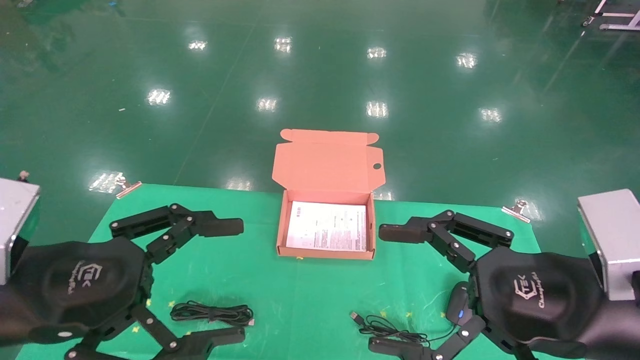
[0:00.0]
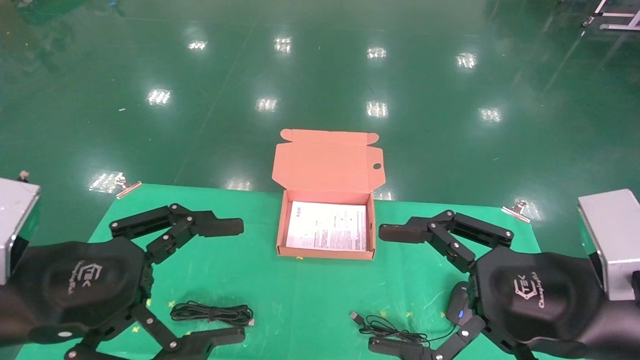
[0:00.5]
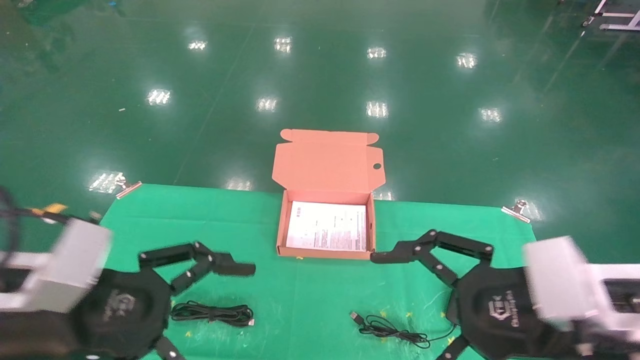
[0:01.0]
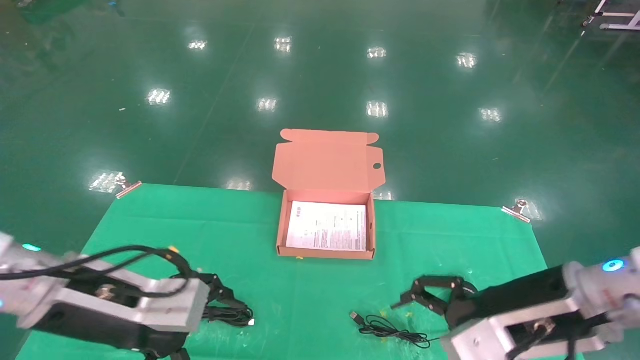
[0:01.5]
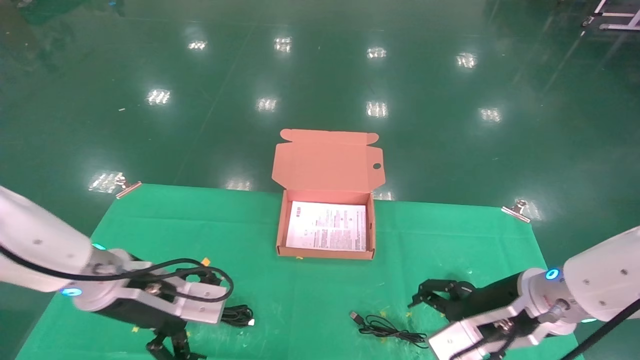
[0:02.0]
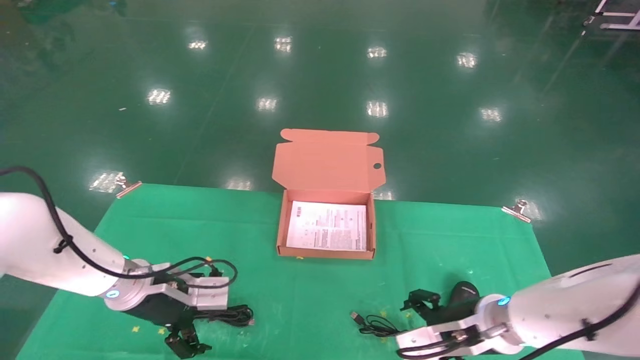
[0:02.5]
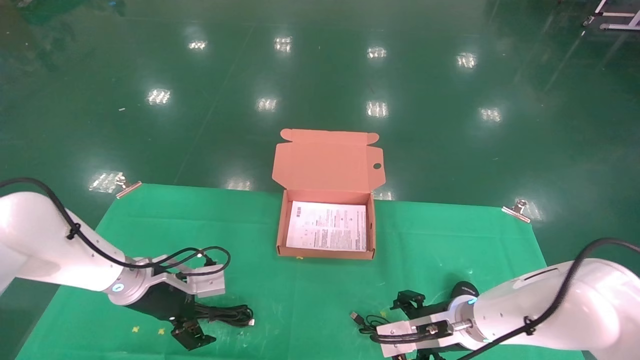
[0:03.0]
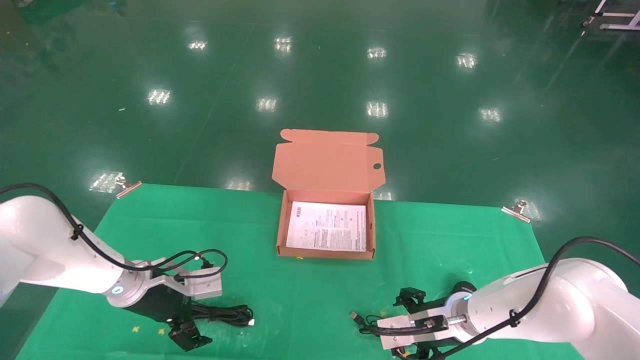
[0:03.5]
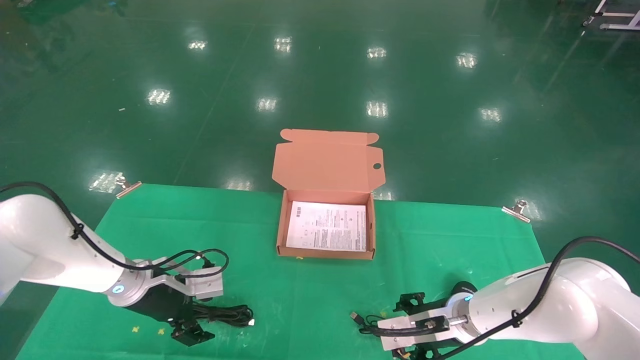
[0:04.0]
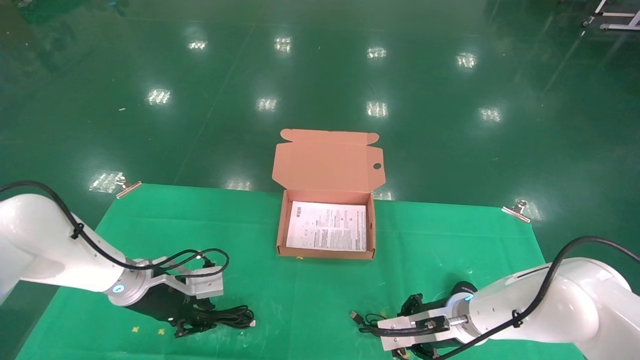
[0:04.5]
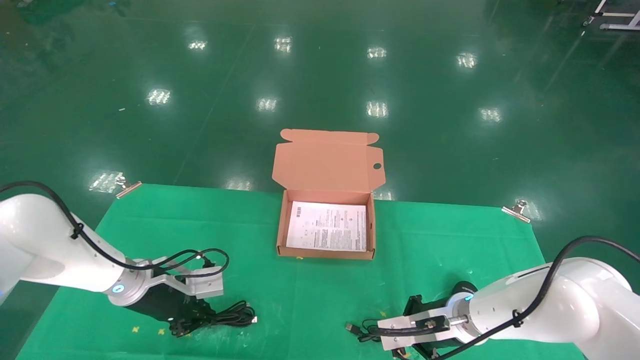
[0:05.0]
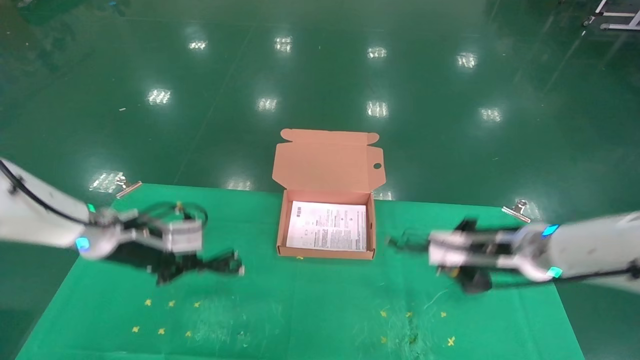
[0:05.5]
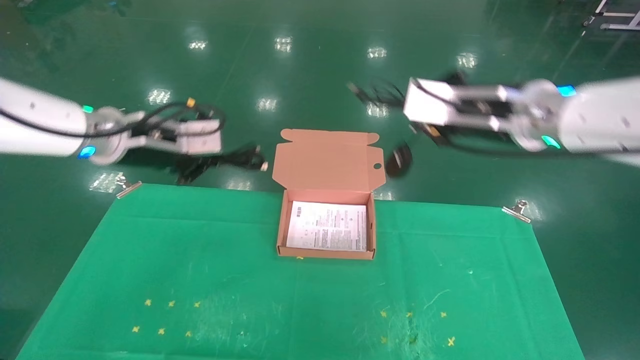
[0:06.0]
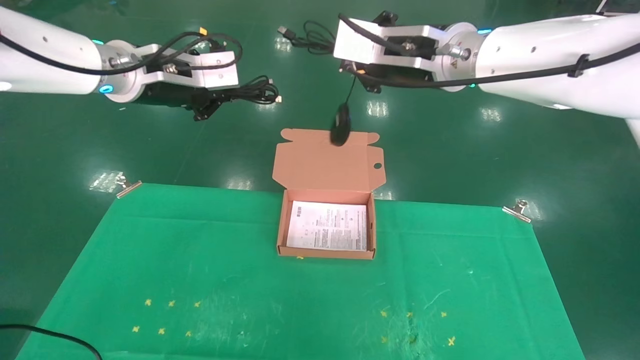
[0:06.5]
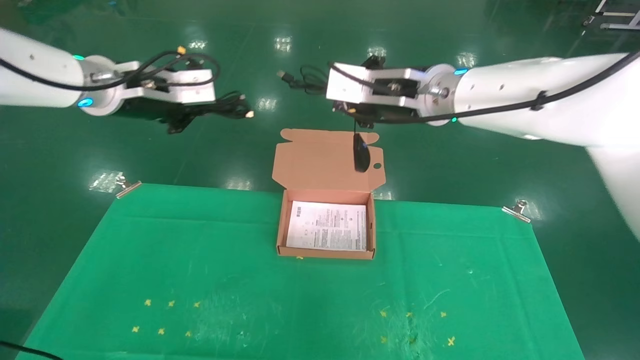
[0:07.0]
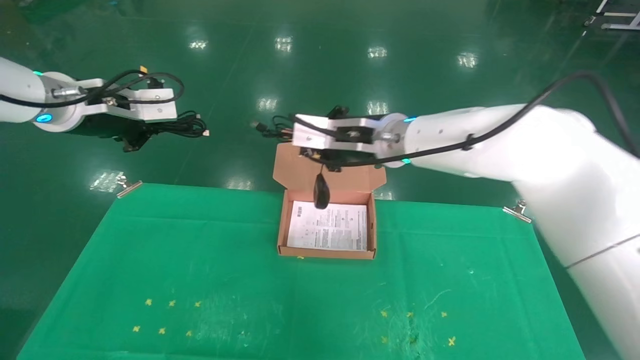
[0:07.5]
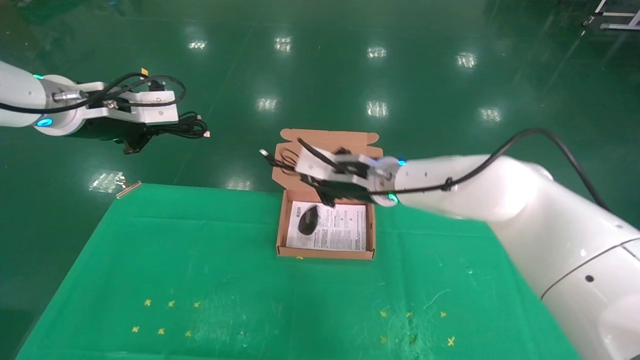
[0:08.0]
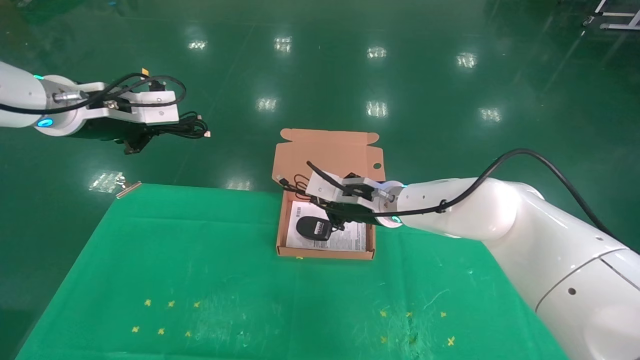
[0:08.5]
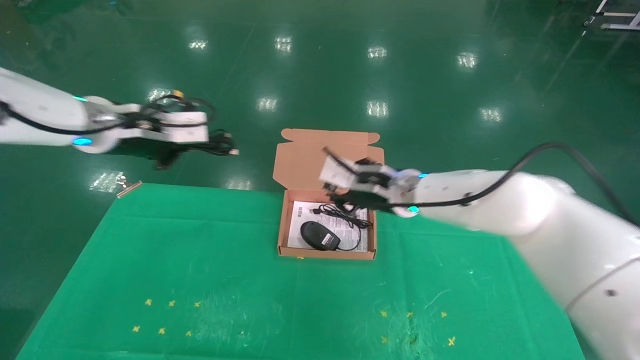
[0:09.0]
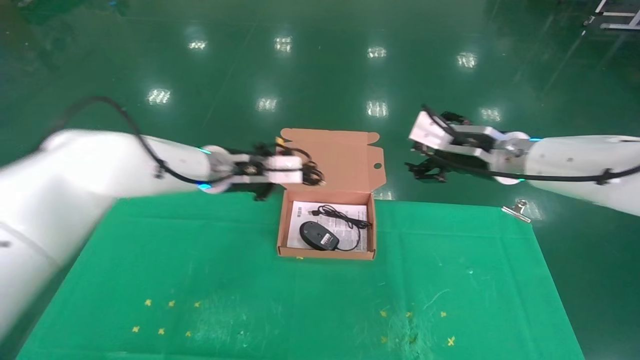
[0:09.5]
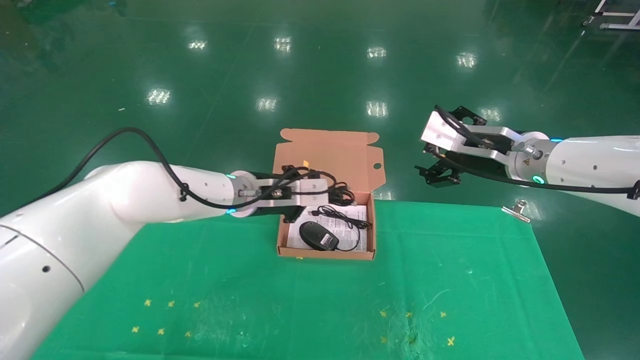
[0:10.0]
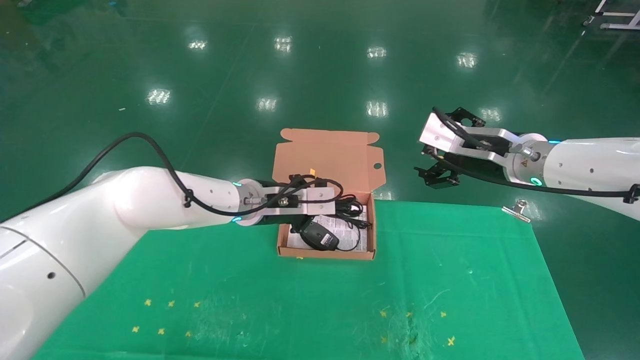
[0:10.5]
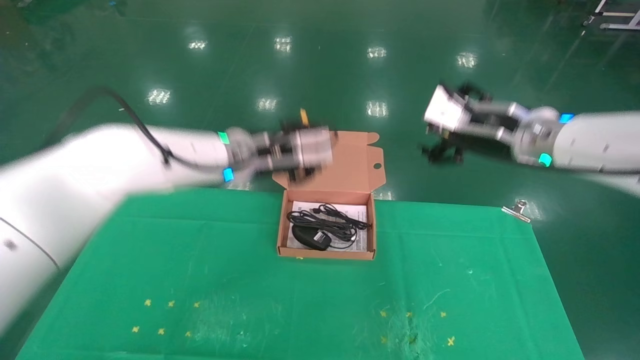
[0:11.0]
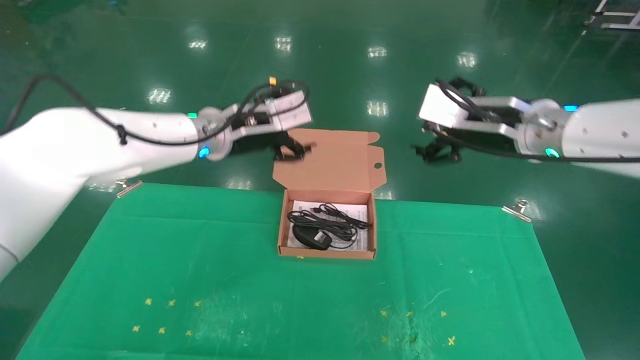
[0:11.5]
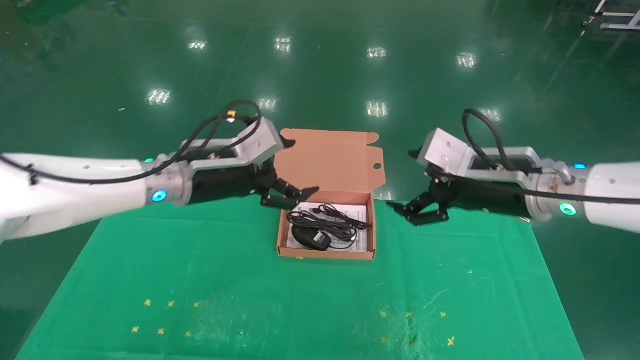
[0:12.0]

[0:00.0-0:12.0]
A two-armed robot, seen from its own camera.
Task of the whole recording: grasp data cable left put into box grasp mouse right put into box.
Step, 0:01.5 to 0:06.0: Grab and pick up both the mouse and power cord from the accessory packaging area at the same time.
Step, 0:06.5 to 0:11.0: Place the mouse and power cord into the box.
0:00.0 to 0:02.0: The two grippers go some 15 cm forward and downward.
0:02.0 to 0:04.0: The right gripper moves downward and forward, about 15 cm. Meanwhile the left gripper heads forward and downward, covering approximately 10 cm.
0:04.0 to 0:06.0: The grippers both shift upward by some 25 cm. The right gripper closes up. The left gripper closes its fingers.
0:06.0 to 0:08.0: The left gripper ends up some 5 cm from where it was, while the right gripper shifts approximately 20 cm to the left, downward and forward.
0:08.0 to 0:10.0: The right gripper goes roughly 15 cm to the right, and opens up. Meanwhile the left gripper moves to the right and downward, some 25 cm.
0:10.0 to 0:12.0: The left gripper is displaced to the left and backward by about 10 cm, and opens up, while the right gripper heads backward, covering approximately 5 cm.
